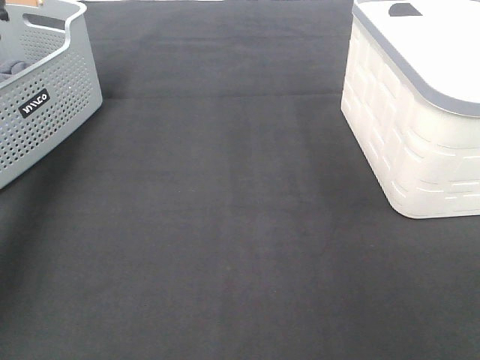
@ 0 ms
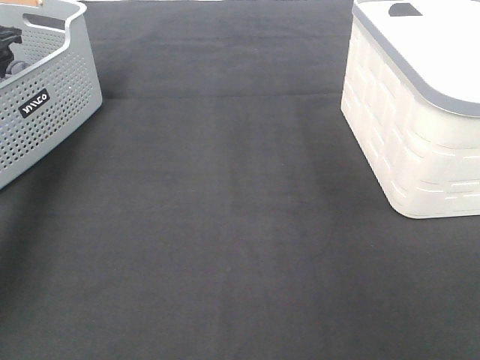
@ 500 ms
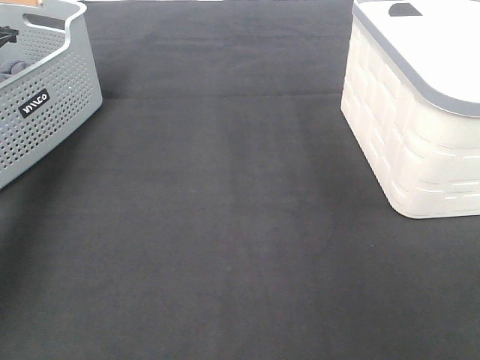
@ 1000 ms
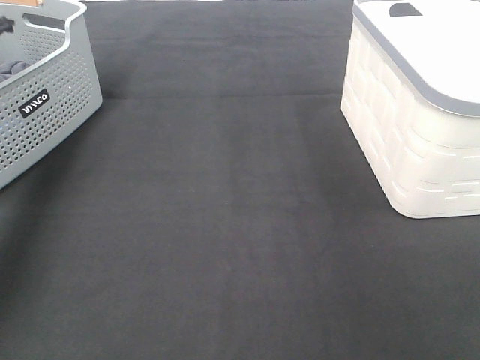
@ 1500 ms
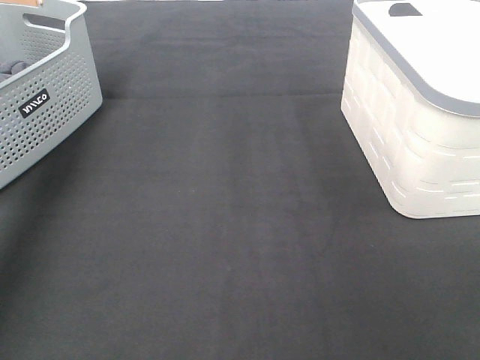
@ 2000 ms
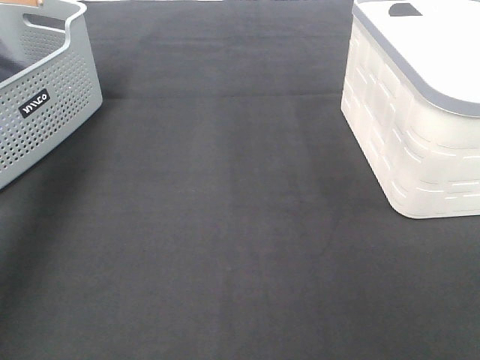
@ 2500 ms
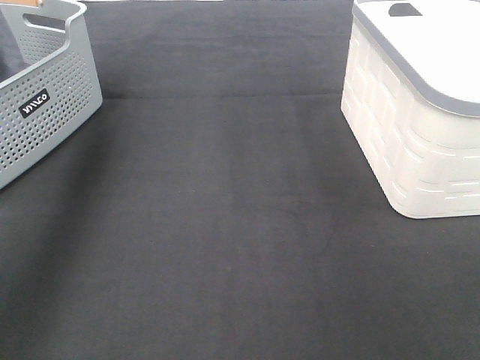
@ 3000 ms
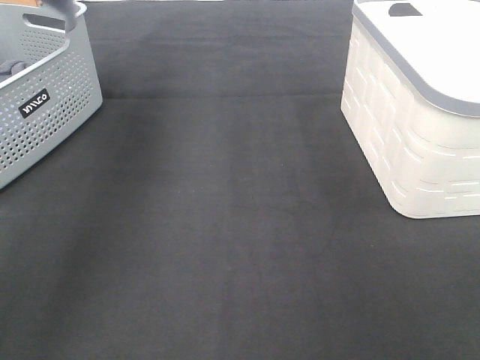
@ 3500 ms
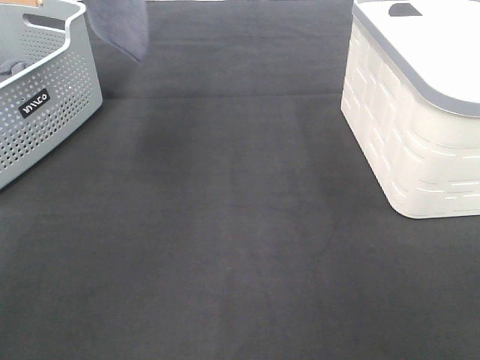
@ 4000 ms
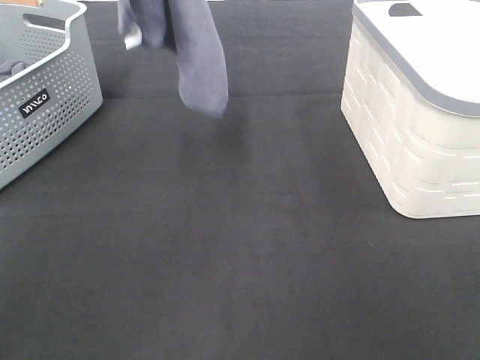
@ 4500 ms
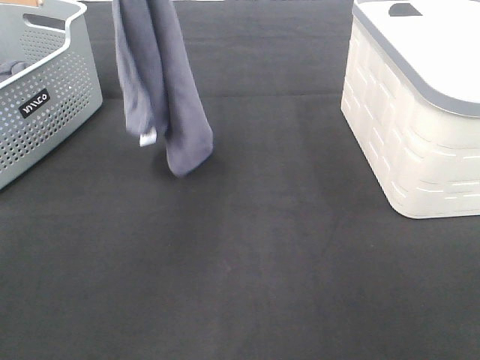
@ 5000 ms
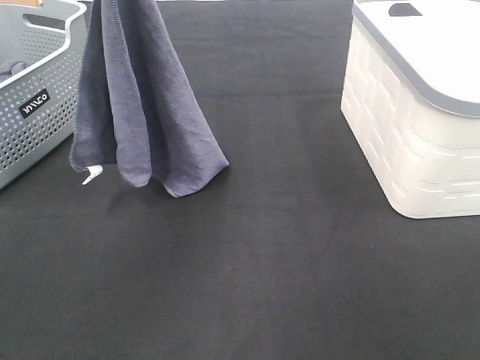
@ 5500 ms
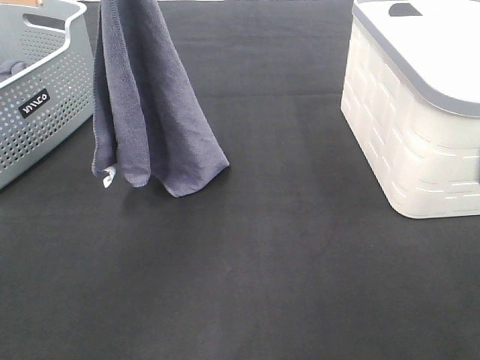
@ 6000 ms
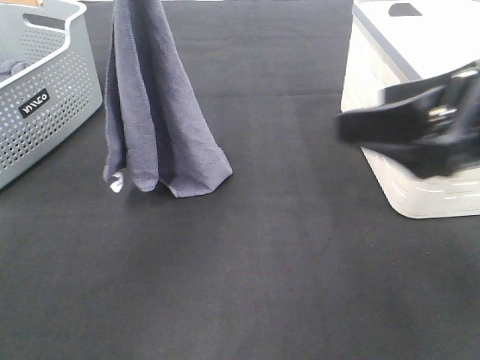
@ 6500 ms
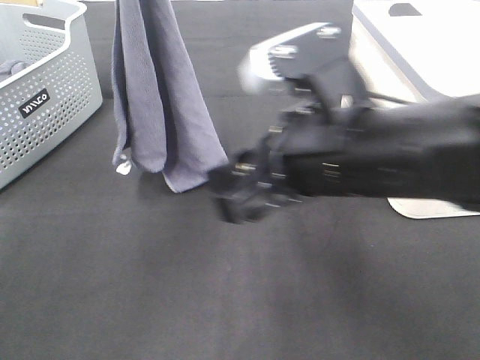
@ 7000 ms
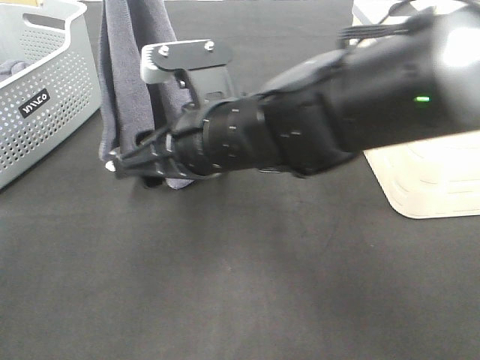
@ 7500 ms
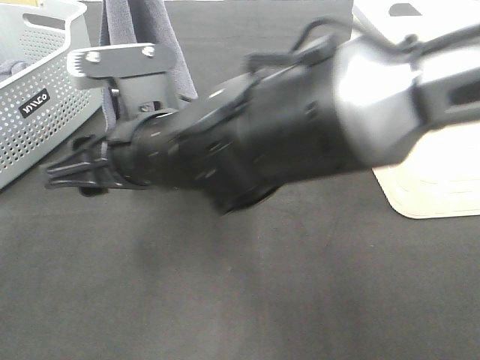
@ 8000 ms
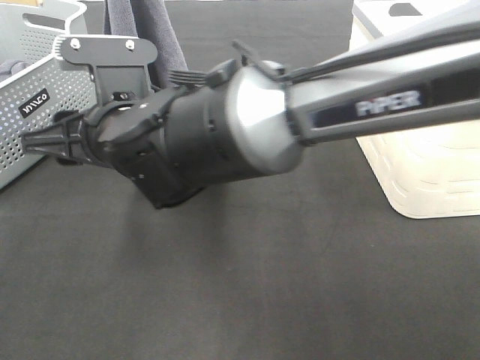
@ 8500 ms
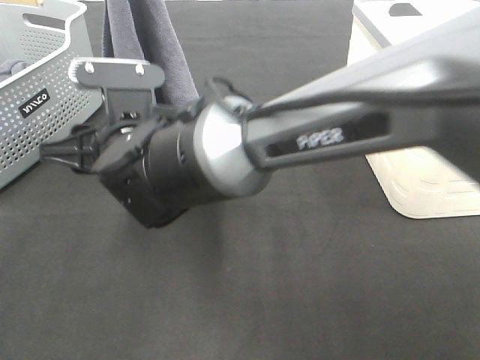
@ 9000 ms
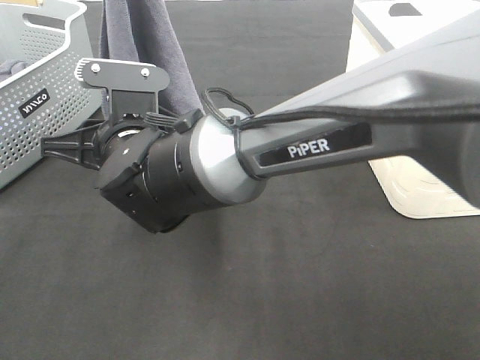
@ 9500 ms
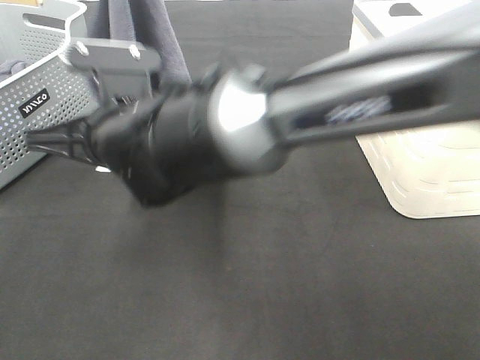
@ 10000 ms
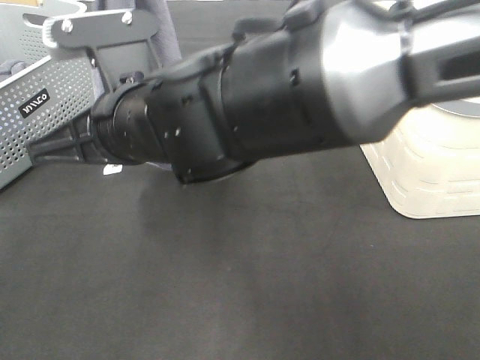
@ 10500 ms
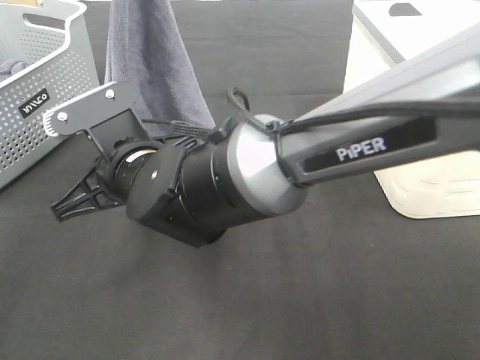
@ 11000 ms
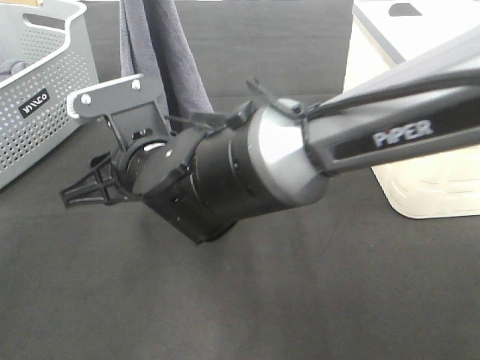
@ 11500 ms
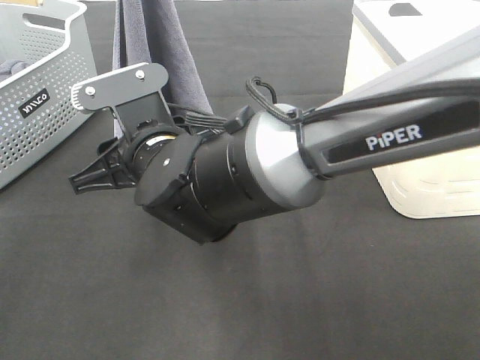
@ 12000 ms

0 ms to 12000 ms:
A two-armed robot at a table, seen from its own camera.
Task of the whole recording: Remove the towel and place it.
Step, 3500 ms to 11000 ms: Right hand: grab a corner of the grey towel and straighten it.
2000 ms to 4000 ms: The left gripper heads upward, to the right and backward, covering roughly 35 cm.
4000 ms to 6000 ms: The right gripper heads forward, covering some 10 cm. Meanwhile the left gripper goes some 20 cm downward.
6000 ms to 8000 ms: The right gripper shifts approximately 35 cm to the left, forward and downward.
8000 ms to 10000 ms: The right gripper closes its fingers.
10000 ms to 12000 ms: The right gripper opens up.

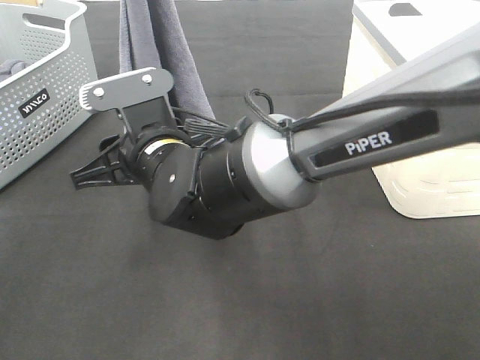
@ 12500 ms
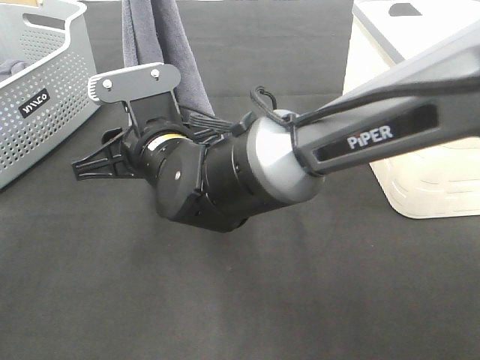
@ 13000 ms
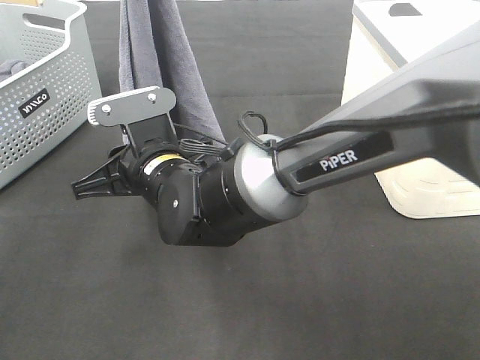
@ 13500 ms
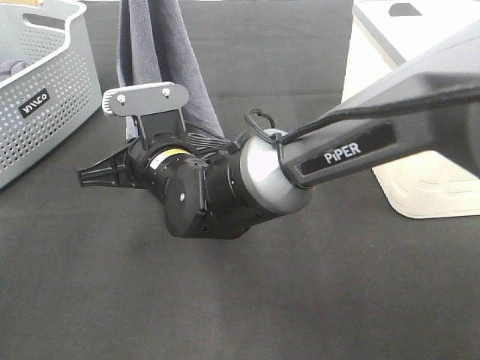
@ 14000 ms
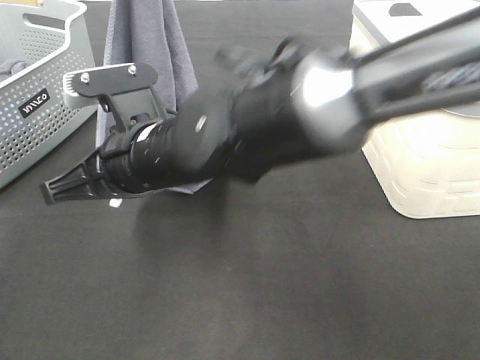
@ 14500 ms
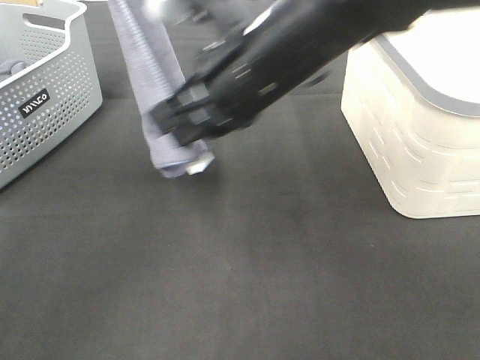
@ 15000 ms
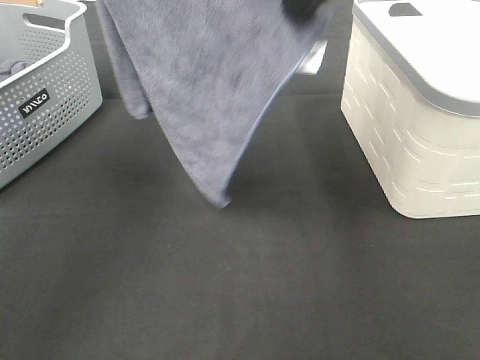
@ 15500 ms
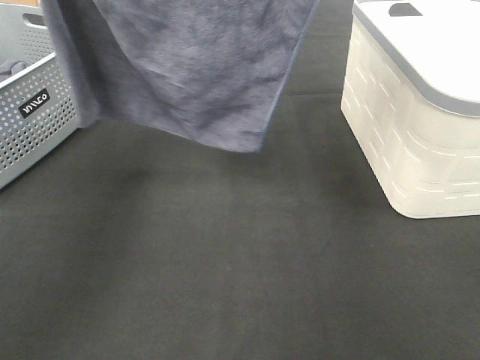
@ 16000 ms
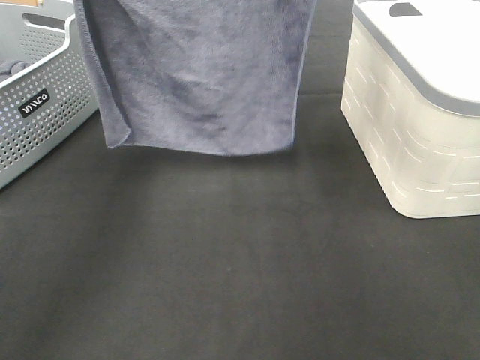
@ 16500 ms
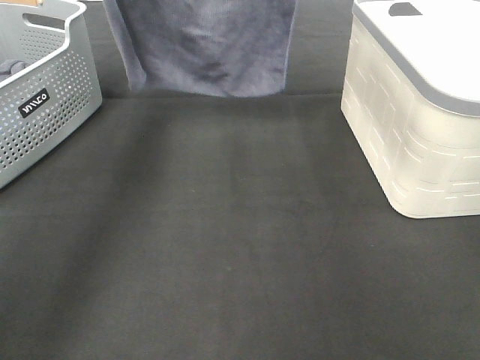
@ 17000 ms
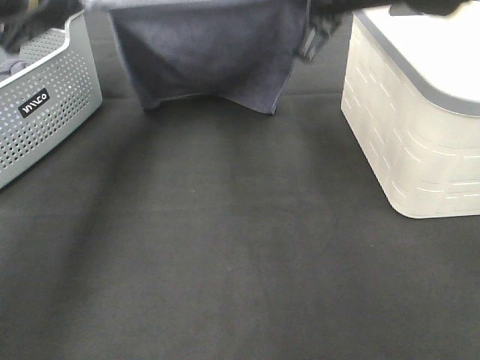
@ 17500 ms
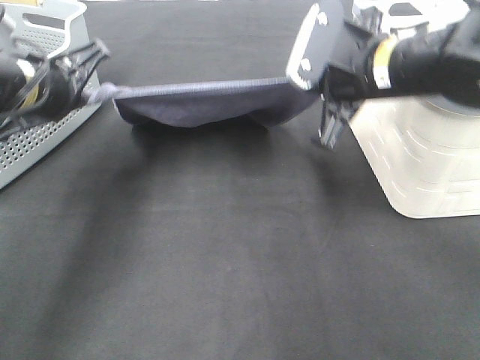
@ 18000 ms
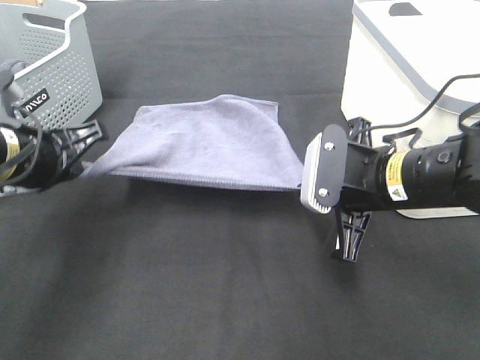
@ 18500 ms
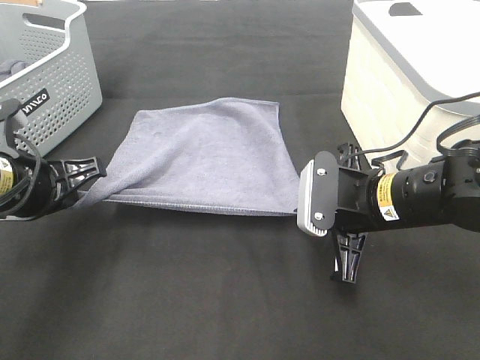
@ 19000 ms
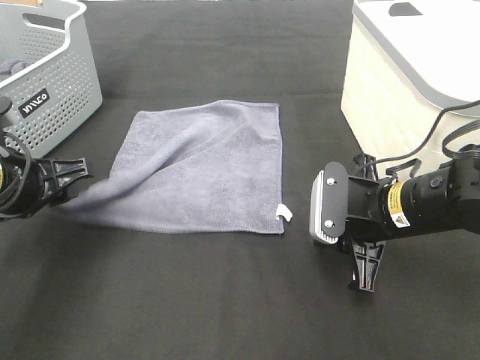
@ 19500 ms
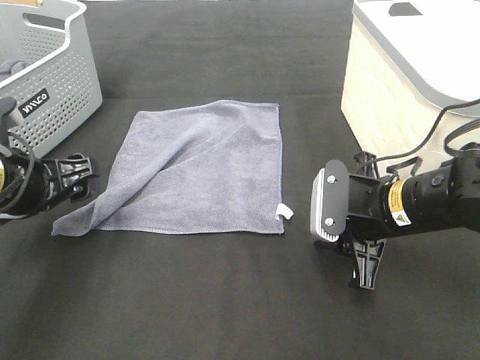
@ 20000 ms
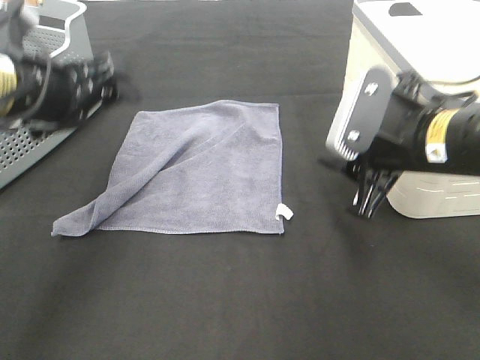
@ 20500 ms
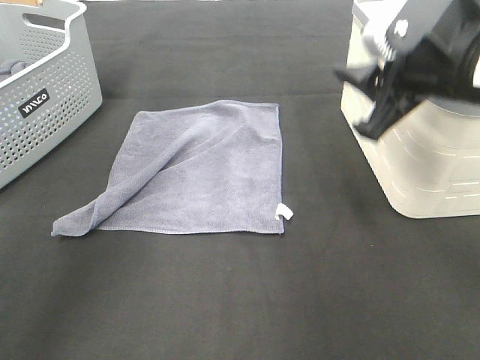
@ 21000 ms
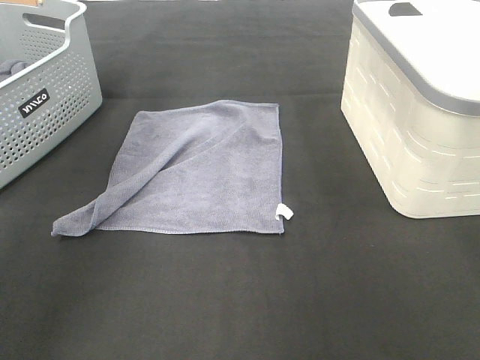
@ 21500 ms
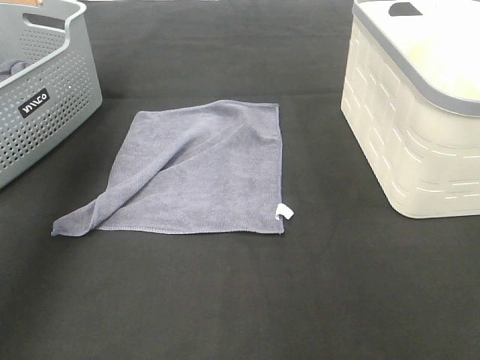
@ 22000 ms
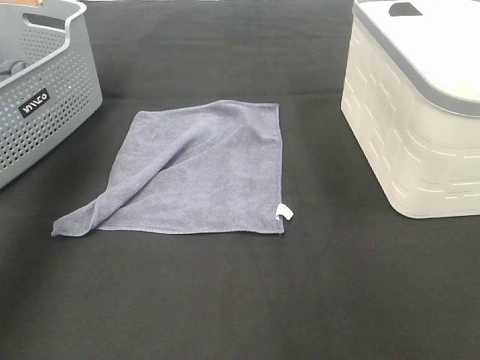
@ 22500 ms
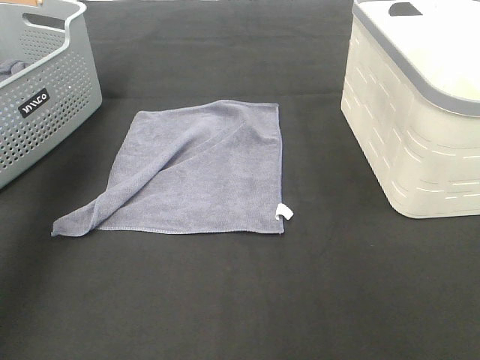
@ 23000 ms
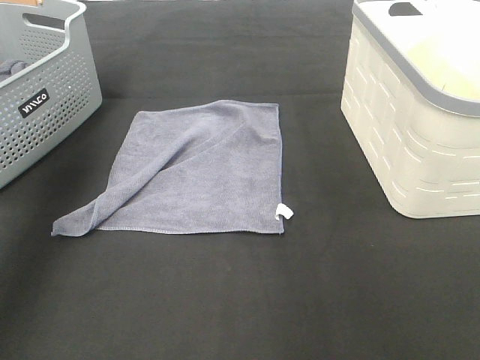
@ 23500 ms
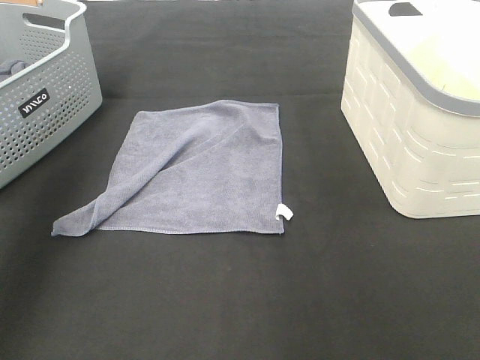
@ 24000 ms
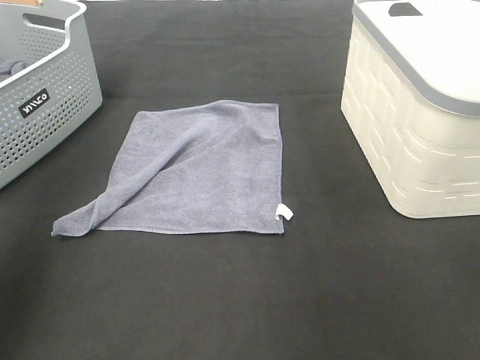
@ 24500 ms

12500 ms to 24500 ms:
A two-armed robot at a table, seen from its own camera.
Task of the whole recording: Remove the towel and place it.
12500 ms to 14500 ms: The right gripper closes up.
14500 ms to 16500 ms: The right gripper travels upward, to the right and forward by approximately 30 cm. Meanwhile the left gripper is displaced to the left and downward by approximately 10 cm.
16500 ms to 18500 ms: Both grippers travel together downward, approximately 25 cm.
18500 ms to 20500 ms: Both grippers travel together upward, roughly 5 cm. The left gripper opens; the right gripper opens up.
20500 ms to 22500 ms: The right gripper goes roughly 20 cm upward. The left gripper goes roughly 25 cm upward, to the left and forward.
22500 ms to 24500 ms: The right gripper travels backward and to the right by some 20 cm.

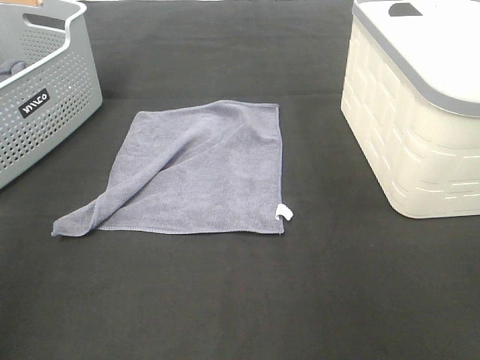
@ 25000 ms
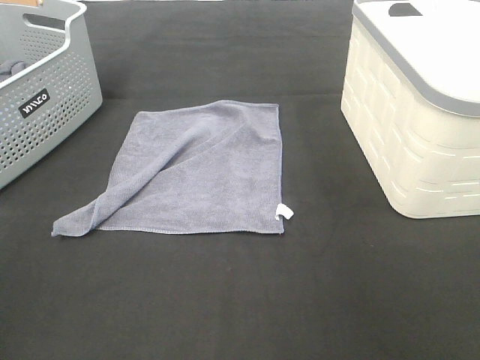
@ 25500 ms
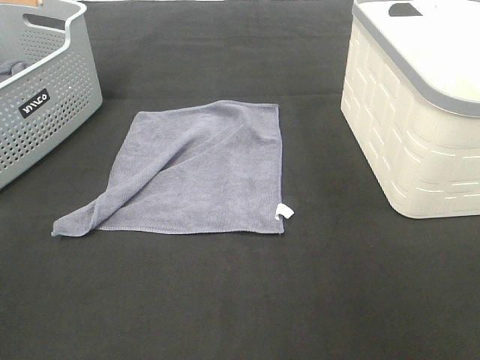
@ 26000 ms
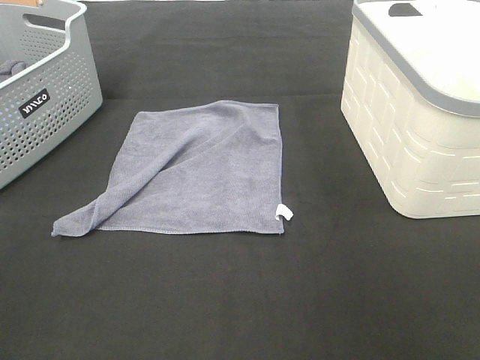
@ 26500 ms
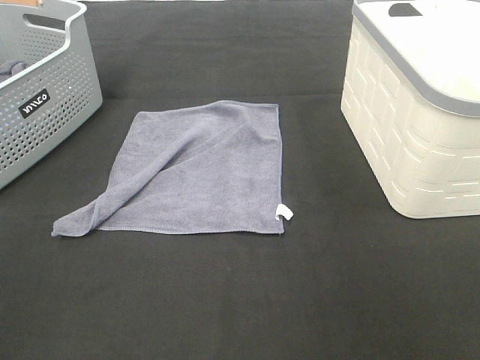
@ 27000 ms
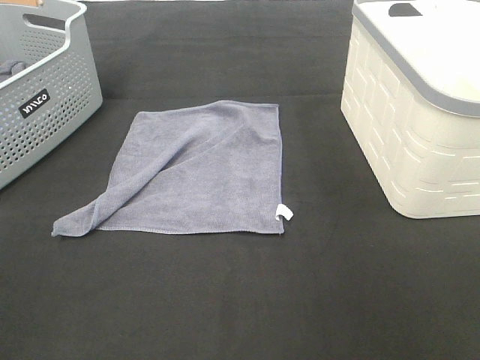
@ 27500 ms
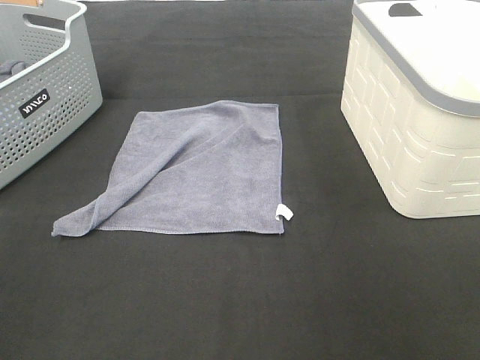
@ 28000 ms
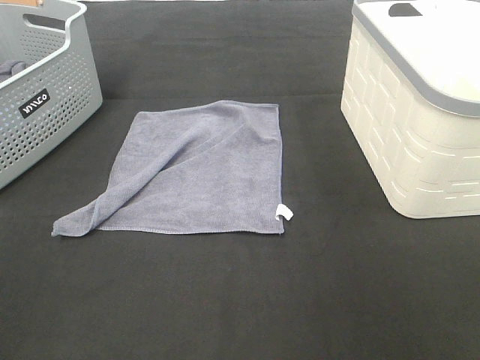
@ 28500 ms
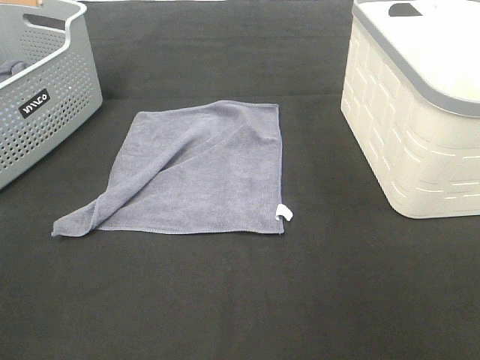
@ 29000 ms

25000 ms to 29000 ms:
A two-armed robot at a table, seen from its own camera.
Task of the whole recording: Remove the towel and place it.
27000 ms to 29000 ms: Both grippers stay put.
